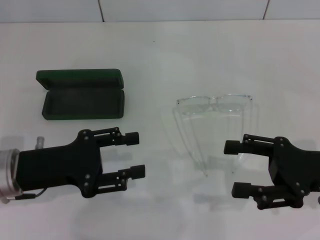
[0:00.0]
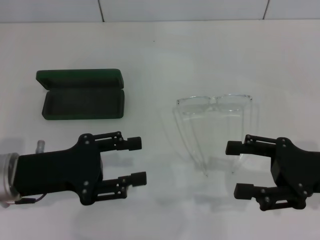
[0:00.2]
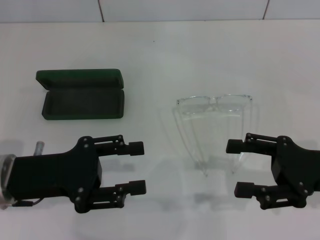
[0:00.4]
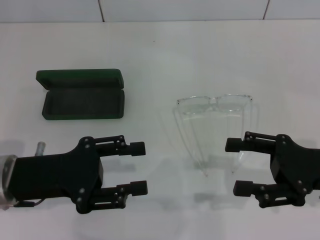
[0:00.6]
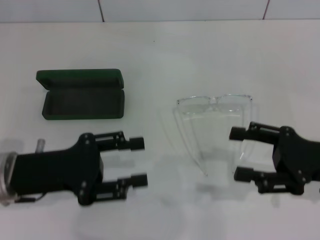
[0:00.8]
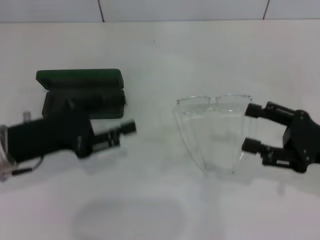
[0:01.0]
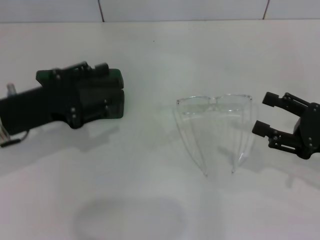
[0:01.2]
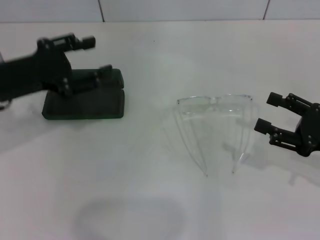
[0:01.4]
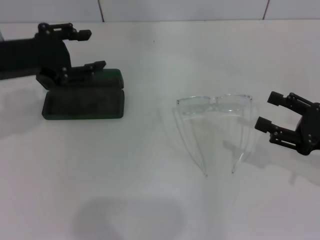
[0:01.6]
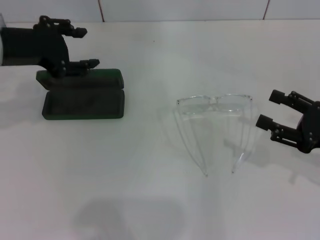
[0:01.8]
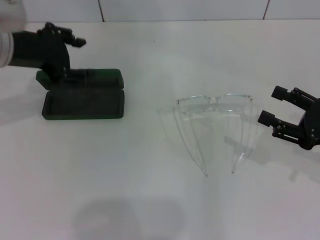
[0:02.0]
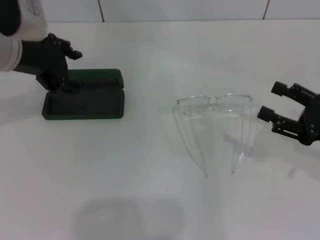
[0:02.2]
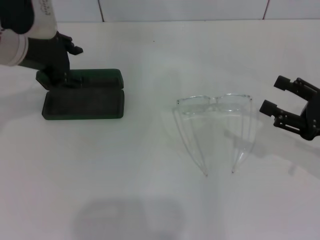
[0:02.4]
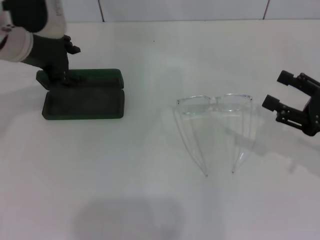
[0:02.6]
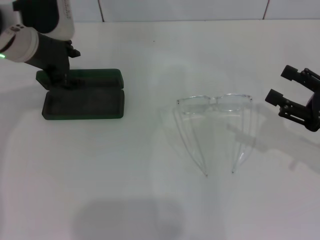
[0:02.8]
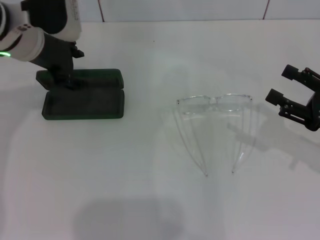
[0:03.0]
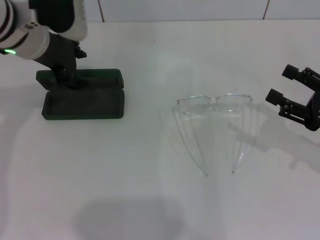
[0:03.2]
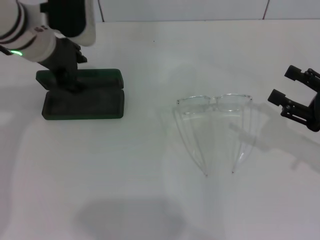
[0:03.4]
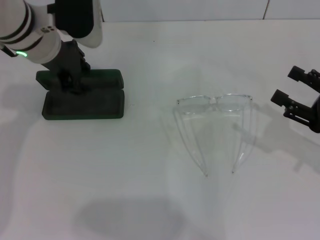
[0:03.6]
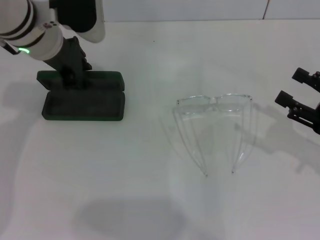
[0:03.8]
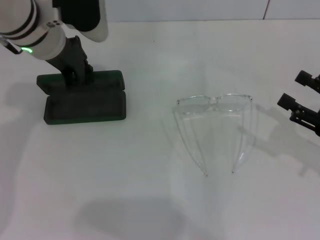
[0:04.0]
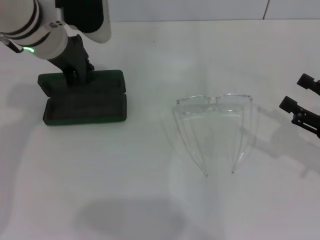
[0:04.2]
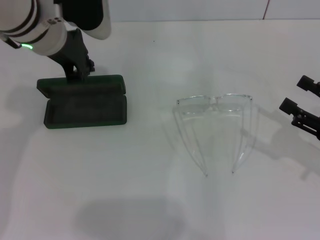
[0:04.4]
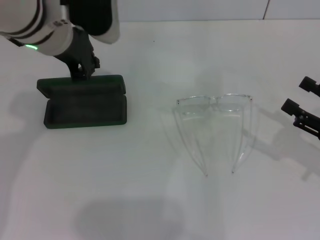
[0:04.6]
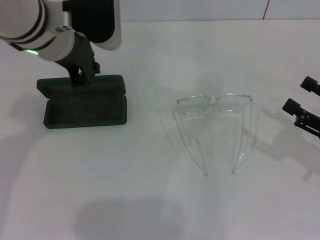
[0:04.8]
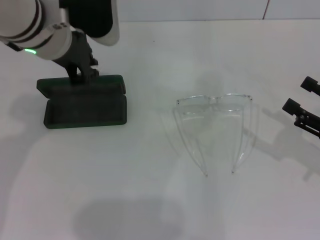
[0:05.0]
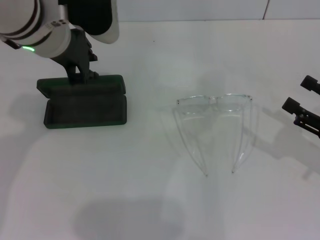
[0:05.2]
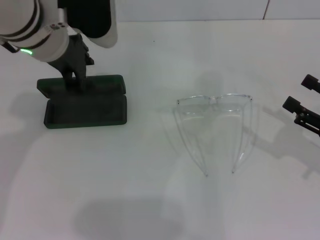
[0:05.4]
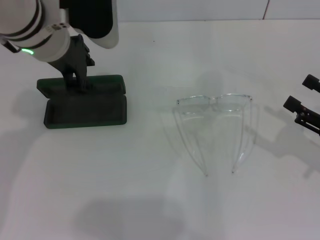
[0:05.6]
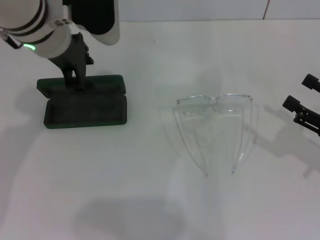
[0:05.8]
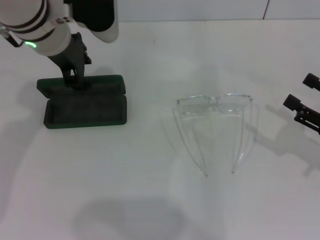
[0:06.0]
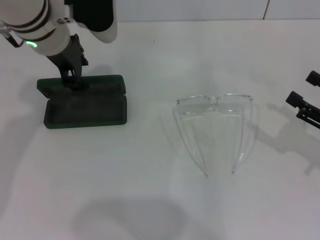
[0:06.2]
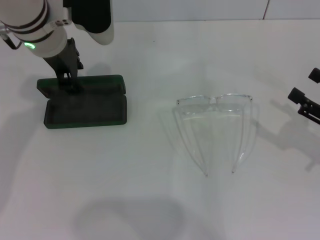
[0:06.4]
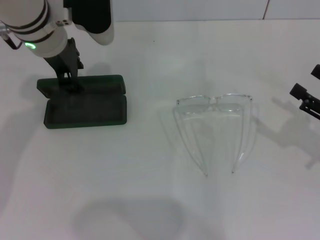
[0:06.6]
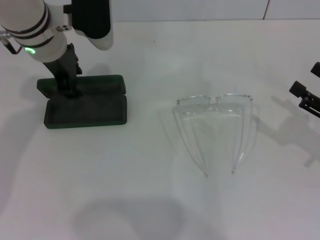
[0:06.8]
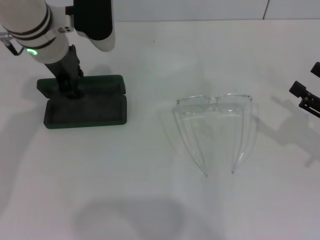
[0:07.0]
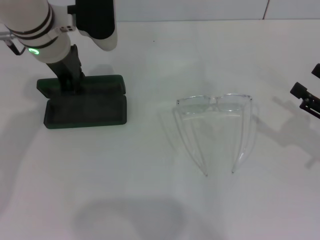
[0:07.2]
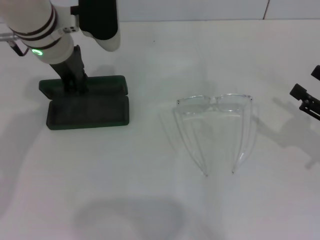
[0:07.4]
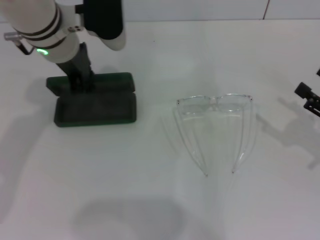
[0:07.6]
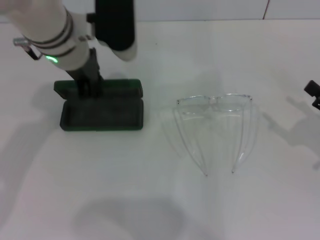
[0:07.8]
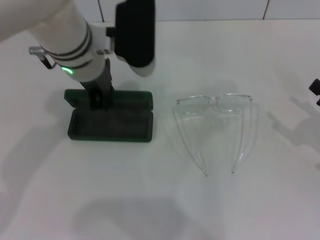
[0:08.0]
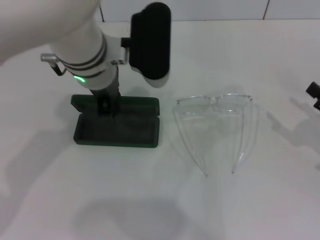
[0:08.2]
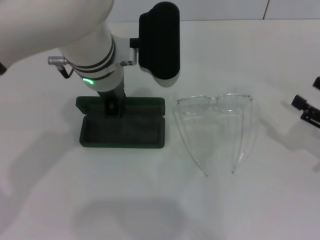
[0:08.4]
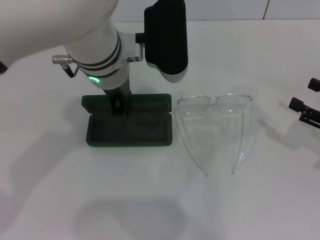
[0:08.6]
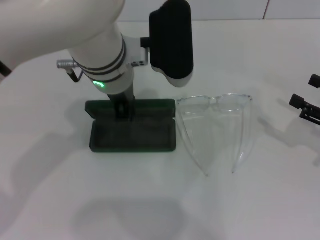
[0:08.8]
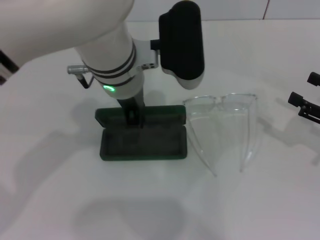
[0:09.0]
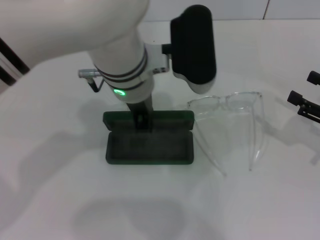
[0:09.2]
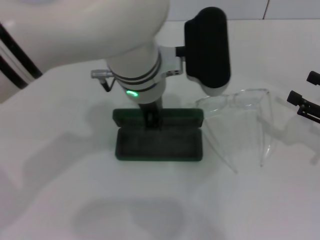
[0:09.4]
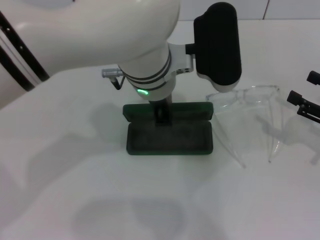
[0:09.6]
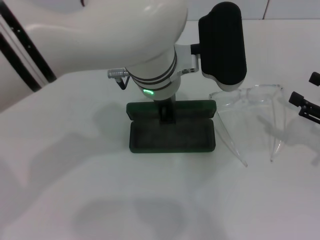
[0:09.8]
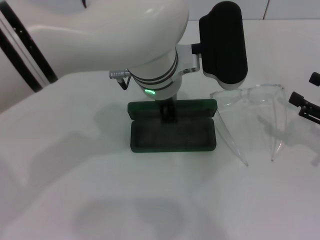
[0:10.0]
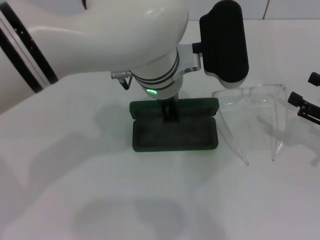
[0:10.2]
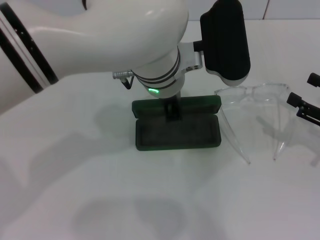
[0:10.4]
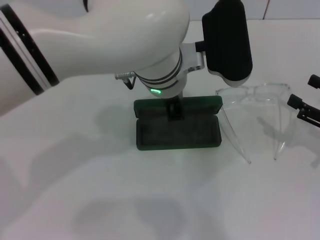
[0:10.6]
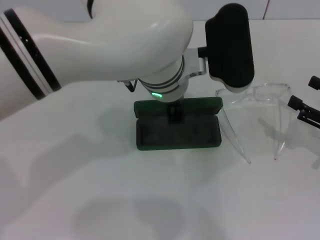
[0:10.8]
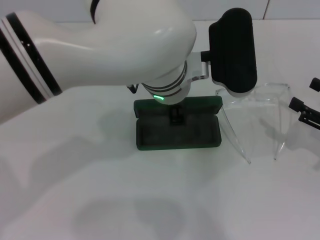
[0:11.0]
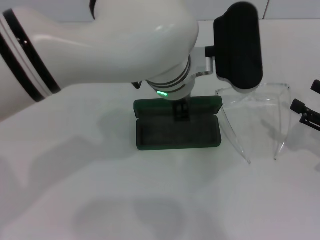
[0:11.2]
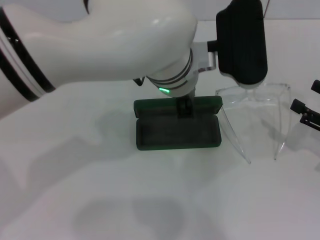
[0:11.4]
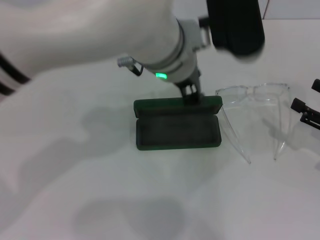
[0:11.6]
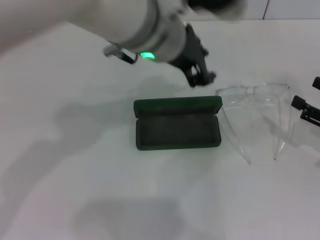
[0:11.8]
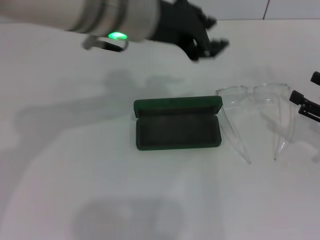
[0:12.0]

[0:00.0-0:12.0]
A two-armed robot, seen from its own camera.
Step, 0:00.0 to 0:06.8: Grab the glasses case with your left hand.
Step, 0:07.2 to 0:11.0: Place the glasses case in the center of the table with your left hand.
0:00.0 to 0:01.6: The left gripper is displaced upward and forward by about 15 cm.
0:01.6 to 0:03.0: The left gripper moves forward and to the right, about 10 cm.
0:03.0 to 0:04.4: The left gripper closes.
0:04.4 to 0:06.0: The left gripper opens.
0:06.0 to 0:07.6: The left gripper closes.
0:07.6 to 0:09.0: The left gripper goes about 10 cm to the right and backward.
0:10.4 to 0:12.0: The left gripper heads upward and to the left, covering some 10 cm, and opens.

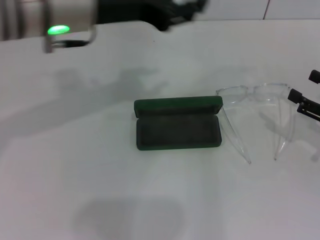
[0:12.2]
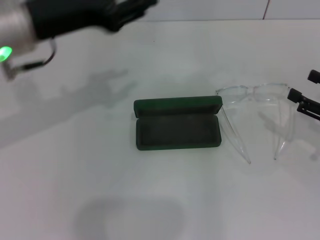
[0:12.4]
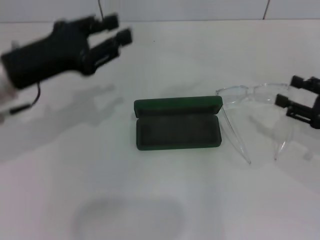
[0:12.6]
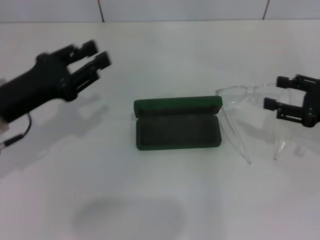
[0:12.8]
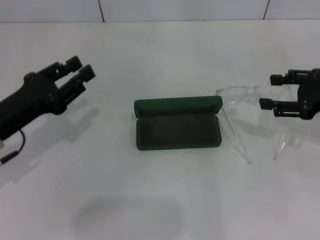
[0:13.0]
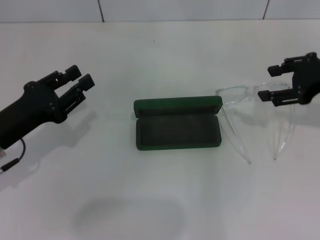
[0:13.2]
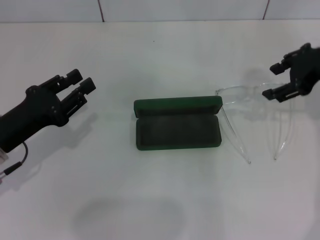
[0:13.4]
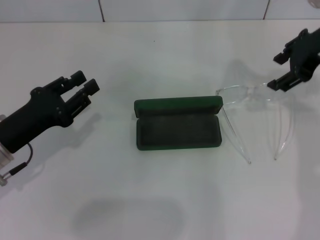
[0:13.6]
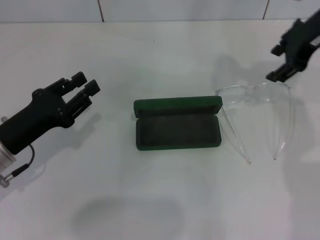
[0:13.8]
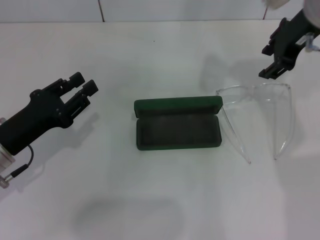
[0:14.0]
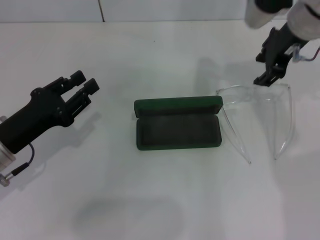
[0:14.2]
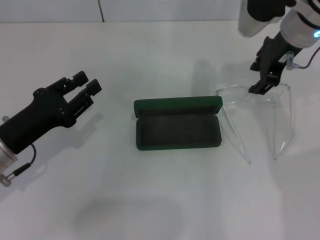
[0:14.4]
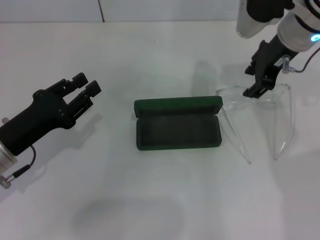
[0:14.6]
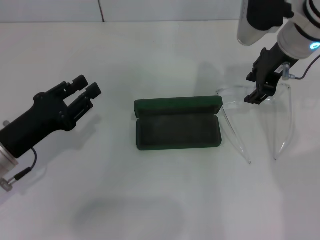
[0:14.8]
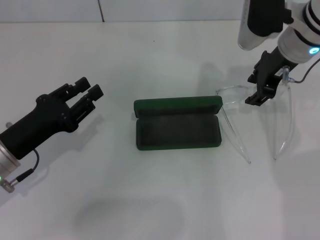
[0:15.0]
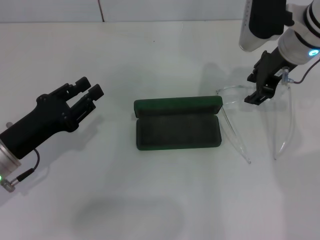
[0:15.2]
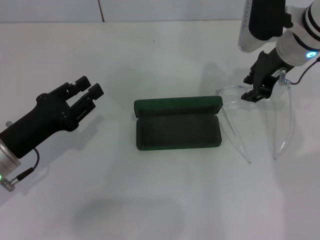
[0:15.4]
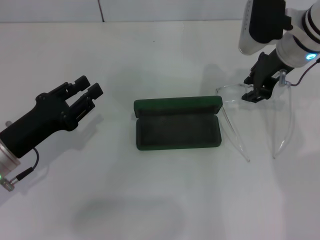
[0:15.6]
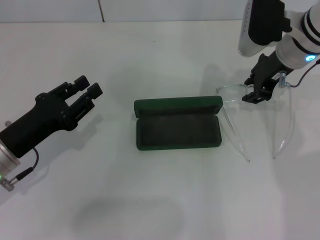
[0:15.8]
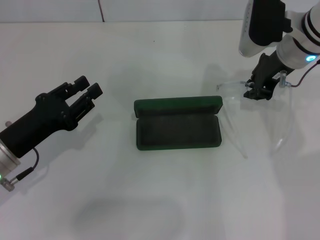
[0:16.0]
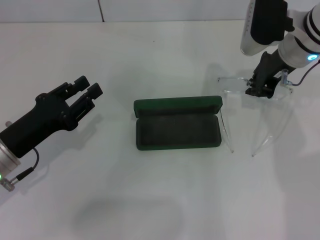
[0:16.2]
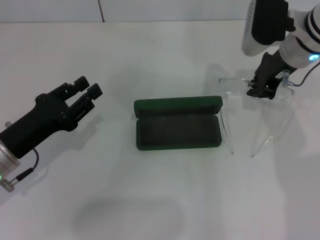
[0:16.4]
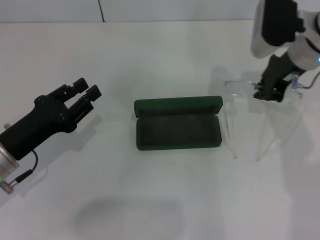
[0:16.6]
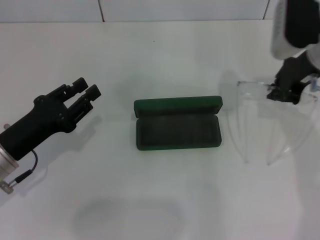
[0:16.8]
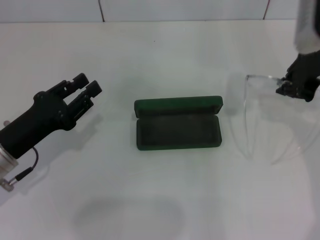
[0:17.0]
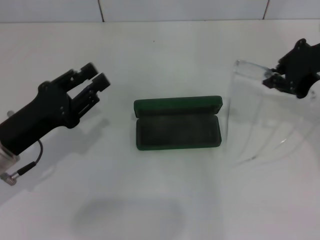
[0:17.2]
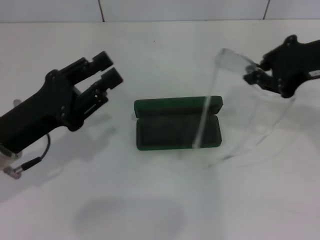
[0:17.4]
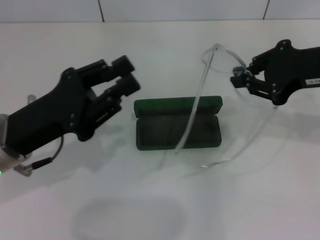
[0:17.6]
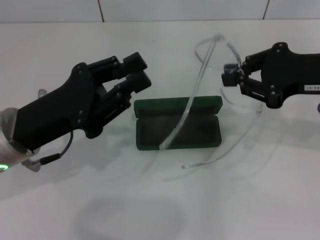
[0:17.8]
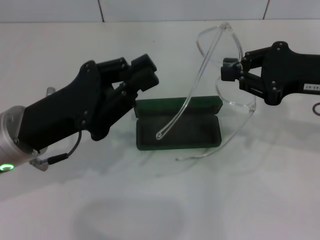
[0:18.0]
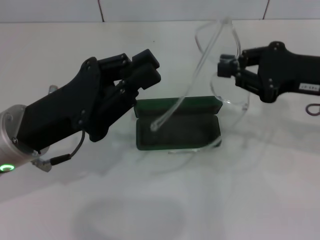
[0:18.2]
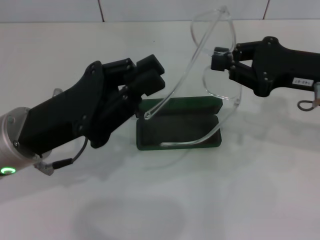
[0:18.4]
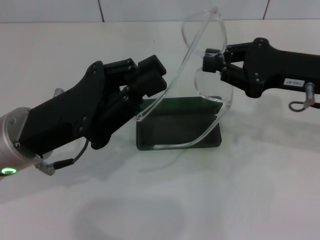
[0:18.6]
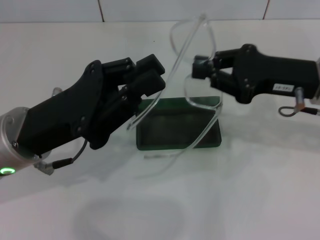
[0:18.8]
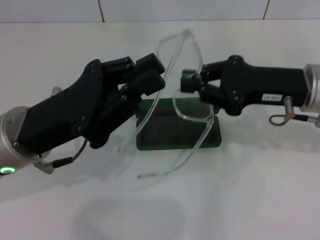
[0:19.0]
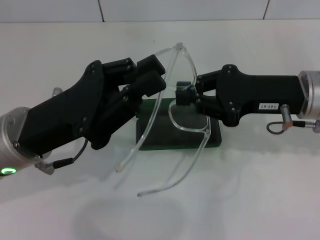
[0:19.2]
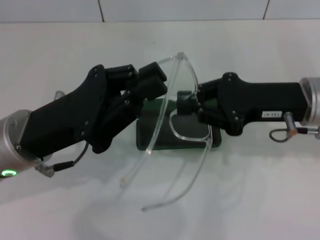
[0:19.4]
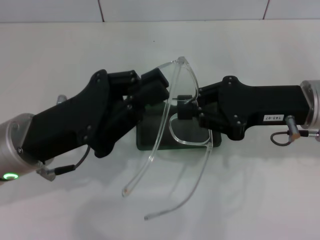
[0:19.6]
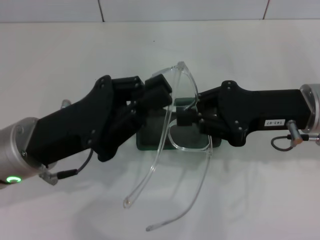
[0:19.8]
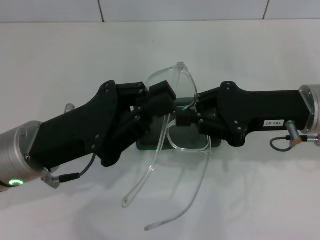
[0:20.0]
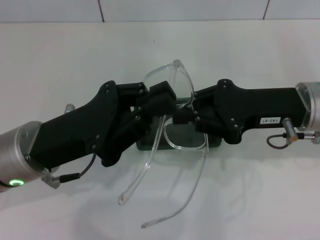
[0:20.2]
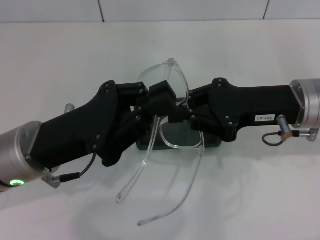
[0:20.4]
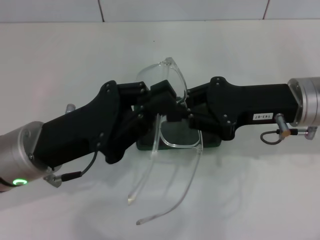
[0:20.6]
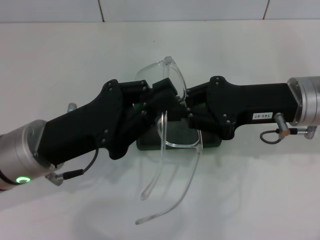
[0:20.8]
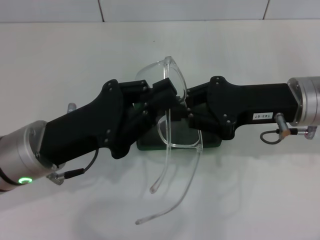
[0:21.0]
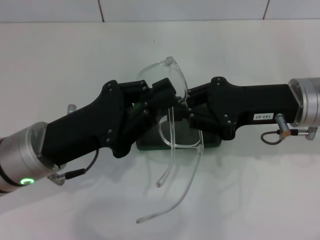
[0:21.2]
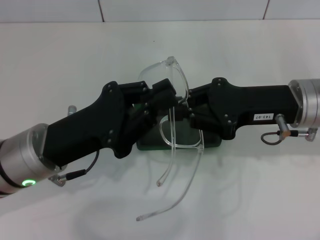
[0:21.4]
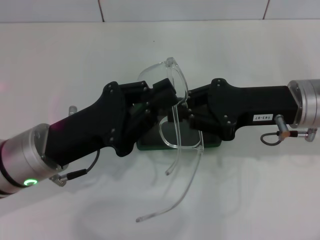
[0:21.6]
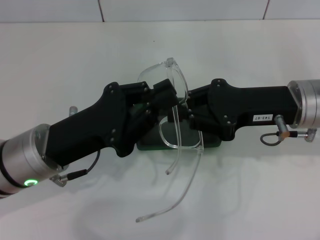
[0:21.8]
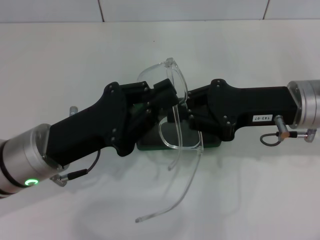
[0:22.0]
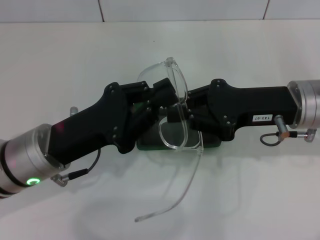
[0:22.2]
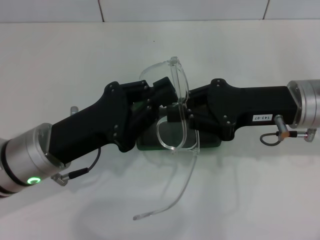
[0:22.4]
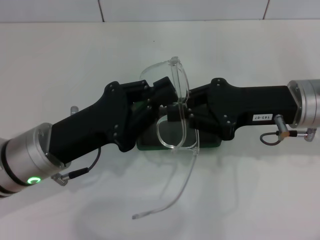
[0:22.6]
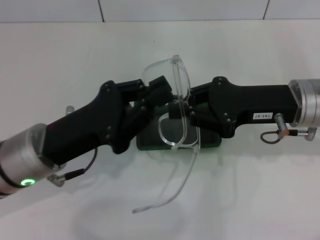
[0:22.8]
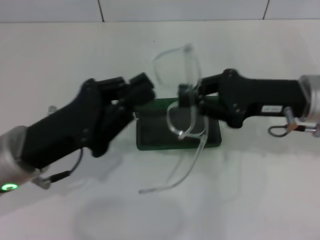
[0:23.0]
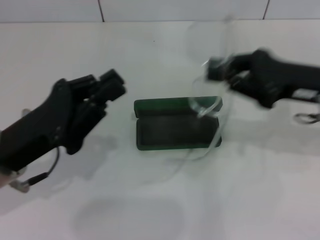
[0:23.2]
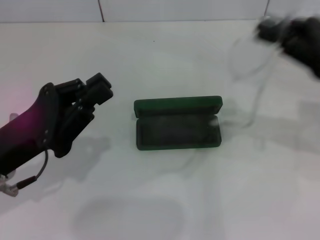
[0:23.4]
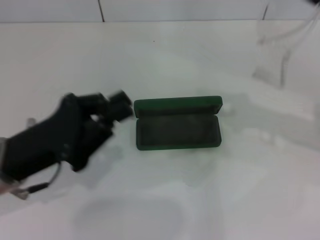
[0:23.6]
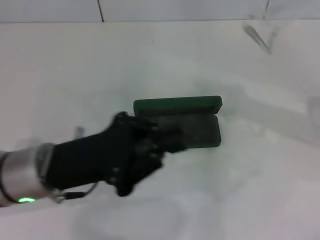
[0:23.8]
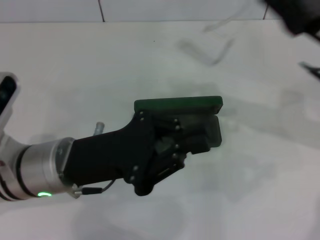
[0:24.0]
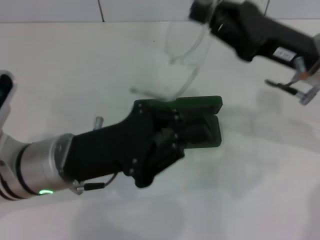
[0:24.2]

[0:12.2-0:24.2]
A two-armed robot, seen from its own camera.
Step, 0:12.2 to 0:16.0: Grab the eyeglass frame with your right hand.
0:12.2 to 0:13.8: The left gripper is displaced downward, to the left and backward by roughly 25 cm. The right gripper shifts some 25 cm upward, forward and to the left.
0:13.8 to 0:15.2: The right gripper shifts roughly 10 cm downward.
0:15.2 to 0:16.6: The right gripper closes.
0:16.6 to 0:18.2: The right gripper goes about 10 cm backward and to the right; the left gripper goes about 10 cm upward and to the right.
0:18.2 to 0:19.8: The right gripper changes place by about 5 cm.
0:19.8 to 0:21.2: The grippers stay close to where they were, moving slightly.
0:21.2 to 0:22.6: Both grippers stay put.
0:22.6 to 0:24.2: The right gripper reaches some 10 cm to the right, then returns; the left gripper moves some 5 cm to the left and comes back.
